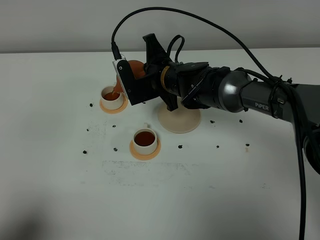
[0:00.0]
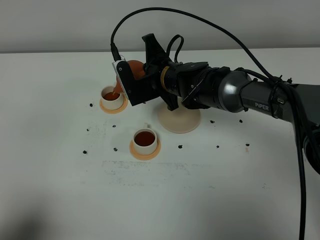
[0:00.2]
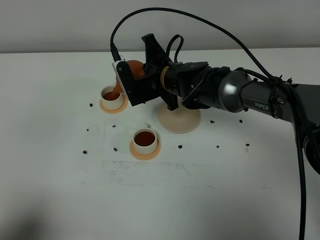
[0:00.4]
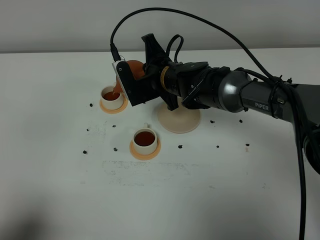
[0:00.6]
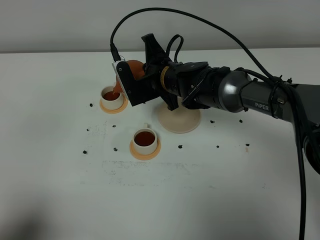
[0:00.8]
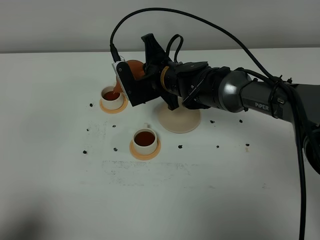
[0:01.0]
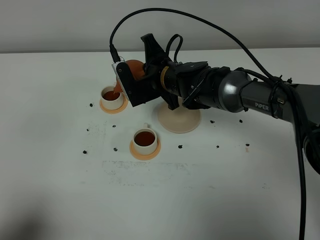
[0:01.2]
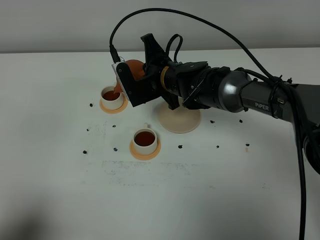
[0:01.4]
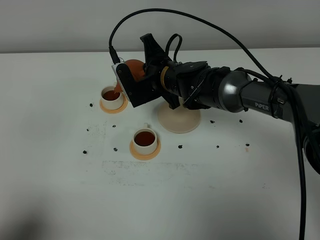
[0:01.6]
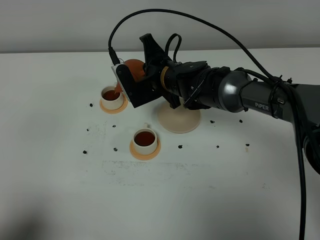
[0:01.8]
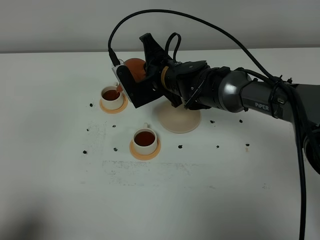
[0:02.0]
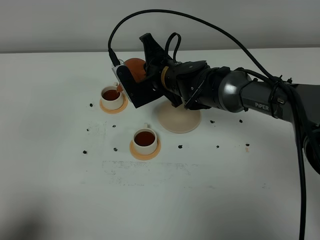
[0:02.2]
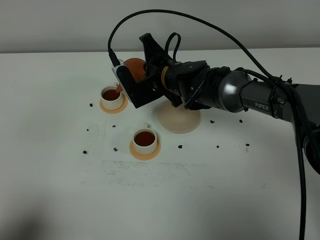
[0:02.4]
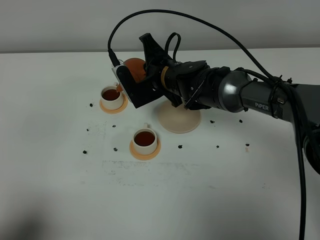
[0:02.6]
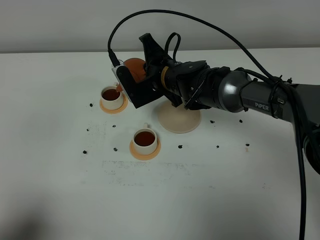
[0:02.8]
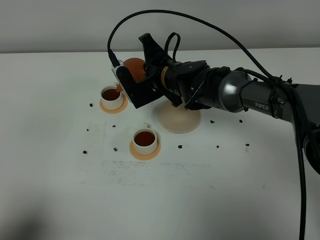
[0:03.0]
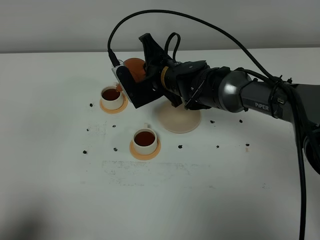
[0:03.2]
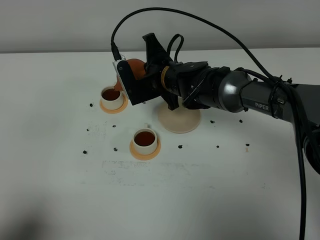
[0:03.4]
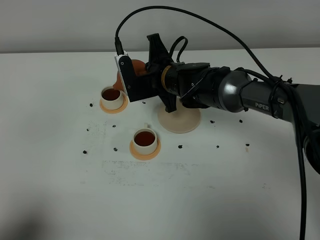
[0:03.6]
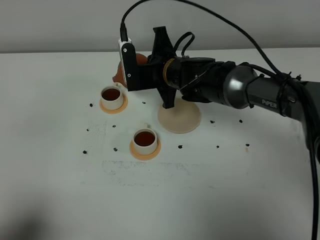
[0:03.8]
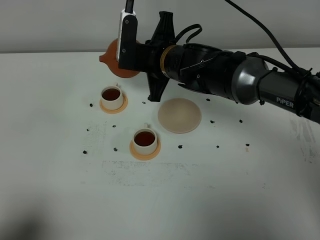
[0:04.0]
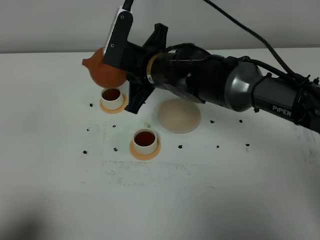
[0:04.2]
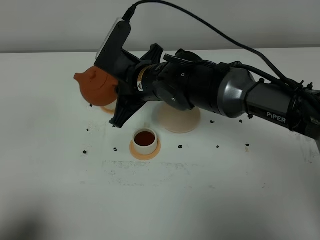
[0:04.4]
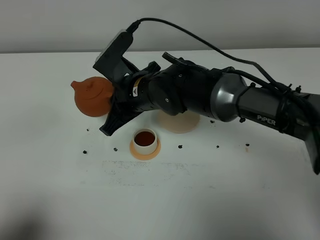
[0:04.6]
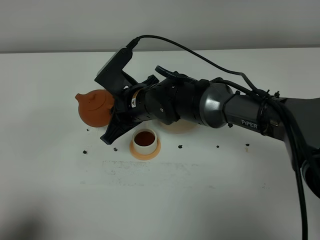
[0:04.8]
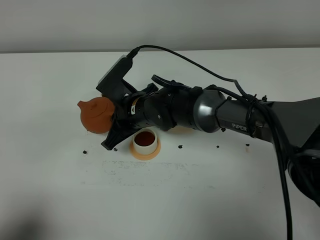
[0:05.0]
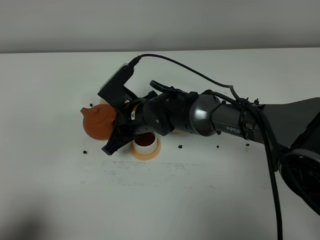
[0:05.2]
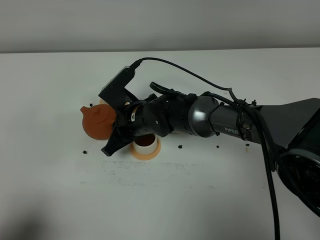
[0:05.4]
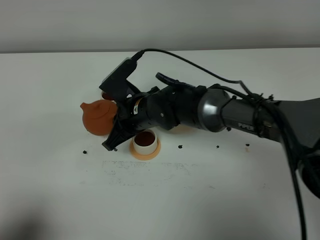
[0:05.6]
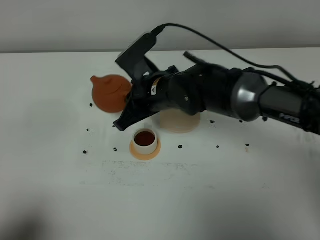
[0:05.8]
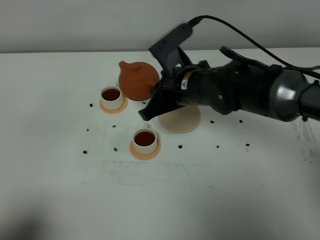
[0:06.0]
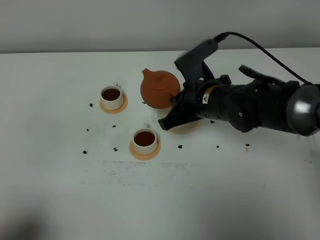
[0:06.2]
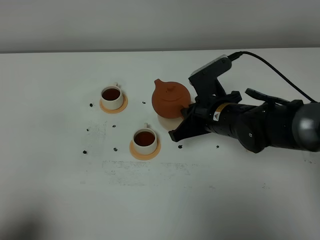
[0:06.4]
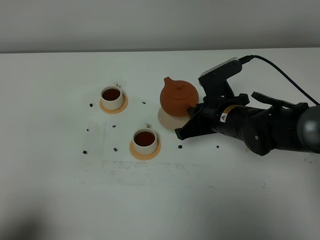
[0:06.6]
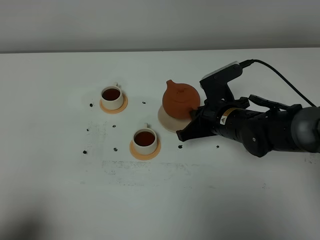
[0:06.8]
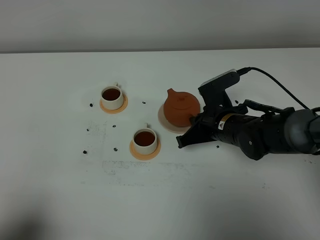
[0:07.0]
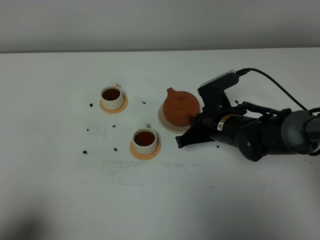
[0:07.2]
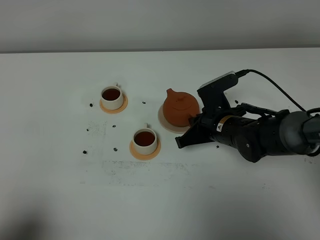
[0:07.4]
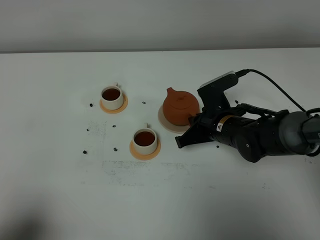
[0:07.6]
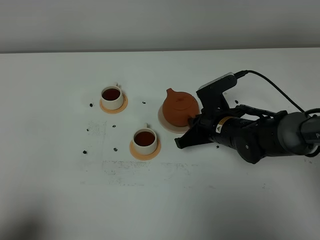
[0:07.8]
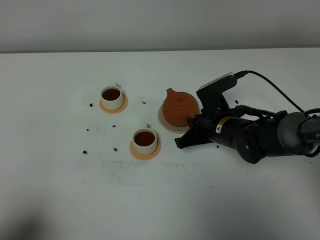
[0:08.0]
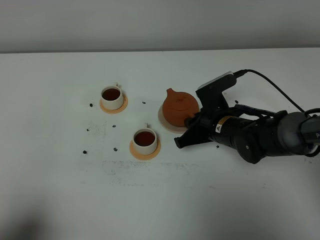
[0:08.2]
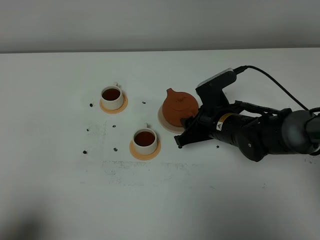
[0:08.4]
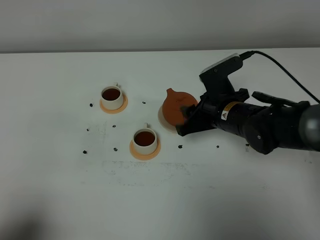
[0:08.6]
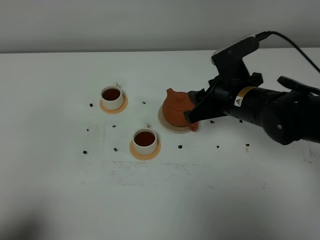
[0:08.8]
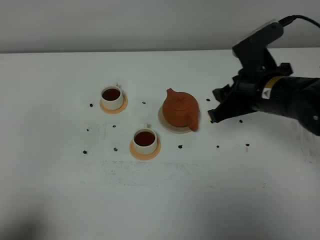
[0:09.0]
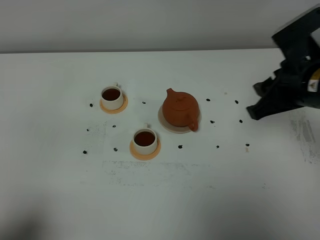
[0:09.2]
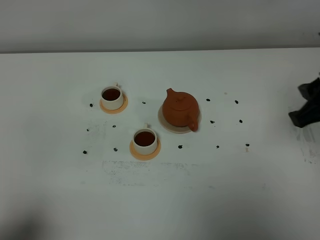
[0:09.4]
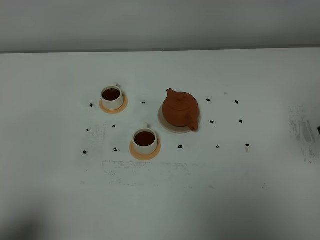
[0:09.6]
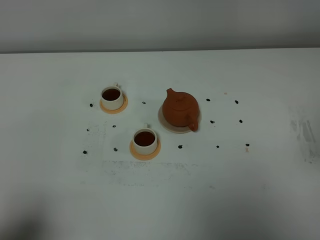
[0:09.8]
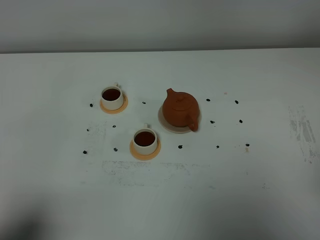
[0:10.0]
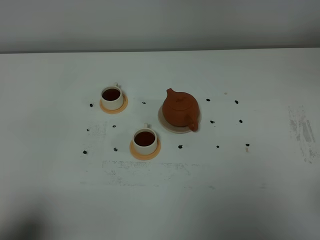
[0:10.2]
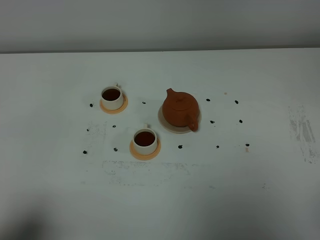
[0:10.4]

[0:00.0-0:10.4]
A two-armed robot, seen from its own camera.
Task of the whole recording: grasp the brown teapot and pour the tea into the two white teacups one by one, put the brown teapot back in its original place.
Step, 0:00.0 to 0:03.8: Pour tea into the teacup with the right gripper.
0:00.0 to 0:01.4: Both grippers stay about where they are.
0:01.4 to 0:03.0: Neither gripper changes place.
0:03.0 to 0:04.4: The right gripper is displaced backward by about 5 cm.
0:04.4 to 0:06.0: The right gripper is displaced to the right by some 10 cm, and goes downward and returns, about 10 cm each way.
0:06.0 to 0:07.4: The right gripper moves downward and to the right, approximately 10 cm.
0:07.4 to 0:09.0: The right gripper heads upward, covering roughly 15 cm, and opens.
0:09.0 to 0:10.4: The right gripper moves backward and to the right, about 30 cm, and closes.

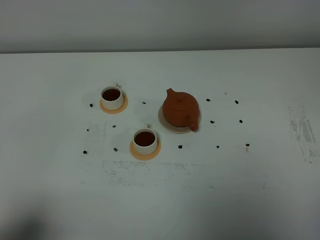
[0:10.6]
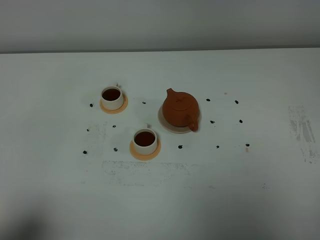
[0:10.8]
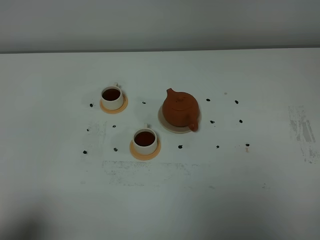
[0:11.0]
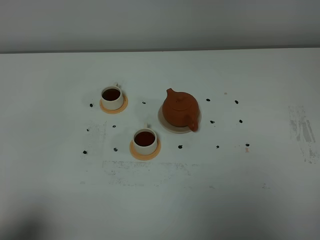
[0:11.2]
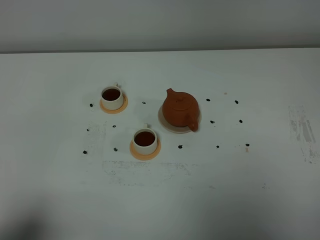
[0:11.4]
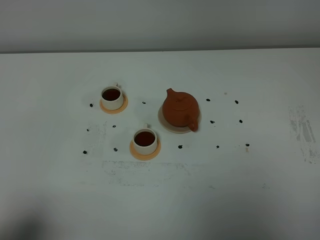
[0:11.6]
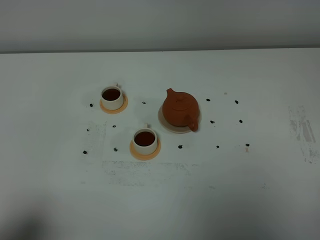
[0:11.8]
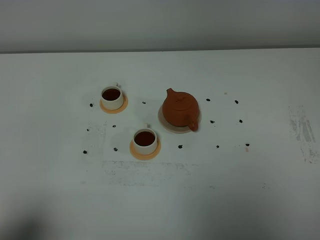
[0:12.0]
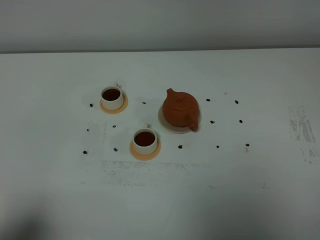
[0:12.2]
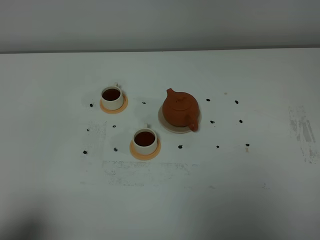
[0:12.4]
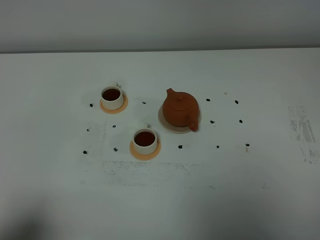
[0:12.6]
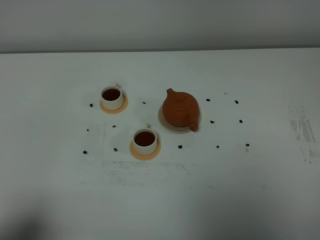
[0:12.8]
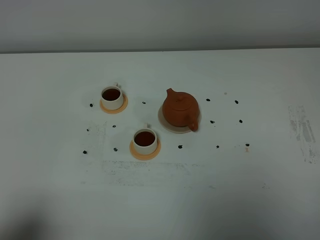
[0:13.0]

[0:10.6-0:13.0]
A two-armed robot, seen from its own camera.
Task of the whole recording: grasp the brown teapot and pour the tea into the two white teacups one by one, put the brown teapot back in its original place.
0:11.8 to 0:13.0: Neither gripper changes place.

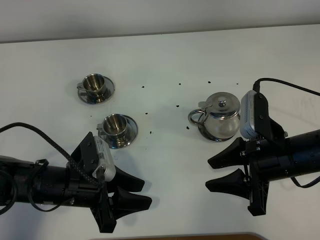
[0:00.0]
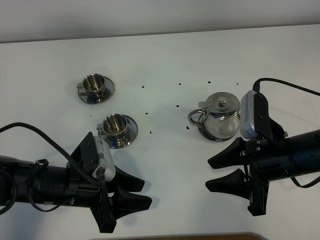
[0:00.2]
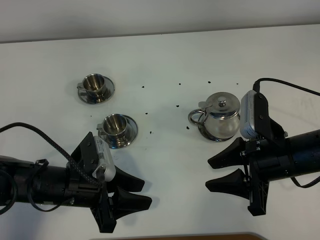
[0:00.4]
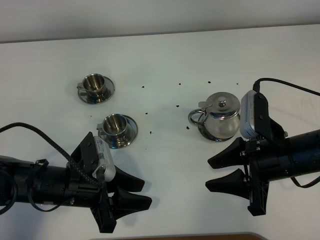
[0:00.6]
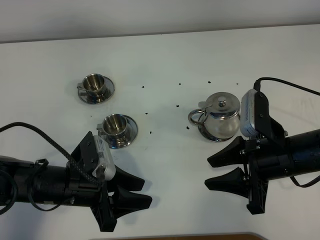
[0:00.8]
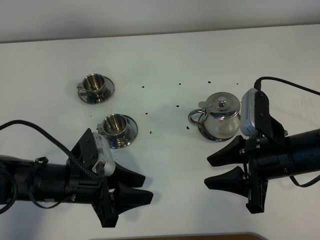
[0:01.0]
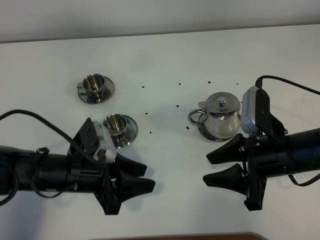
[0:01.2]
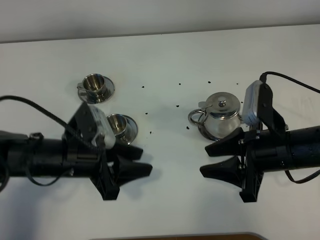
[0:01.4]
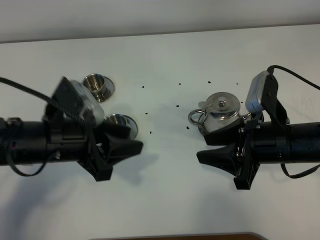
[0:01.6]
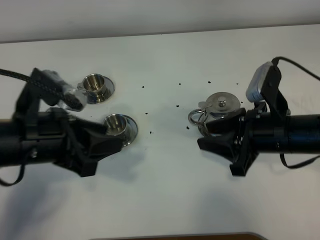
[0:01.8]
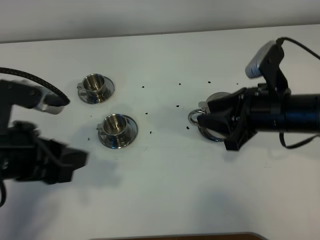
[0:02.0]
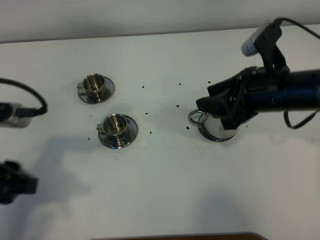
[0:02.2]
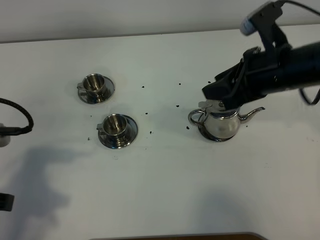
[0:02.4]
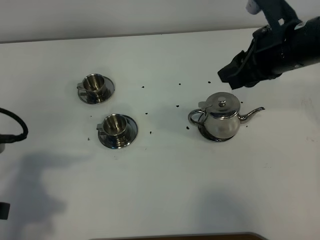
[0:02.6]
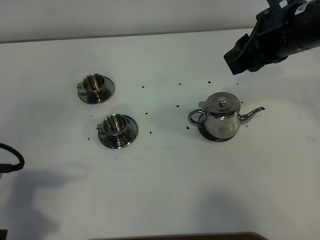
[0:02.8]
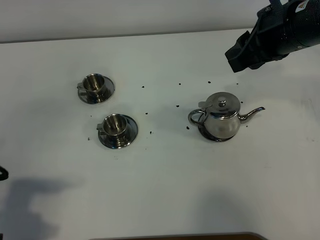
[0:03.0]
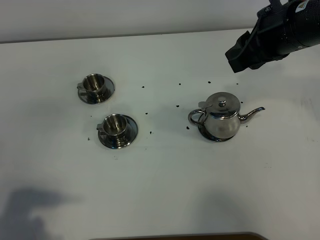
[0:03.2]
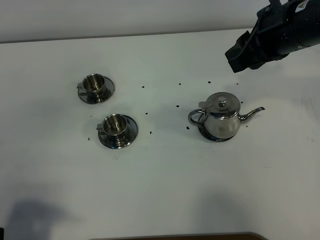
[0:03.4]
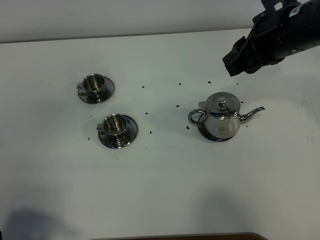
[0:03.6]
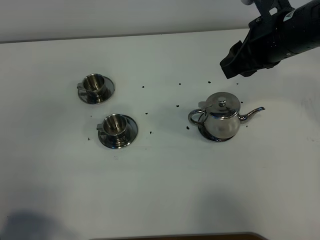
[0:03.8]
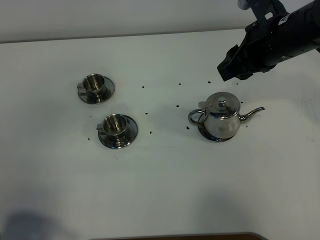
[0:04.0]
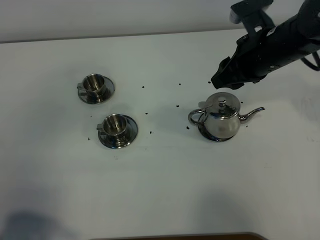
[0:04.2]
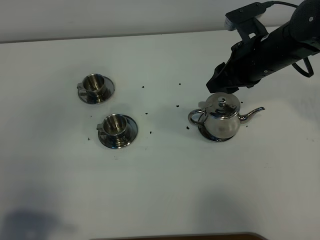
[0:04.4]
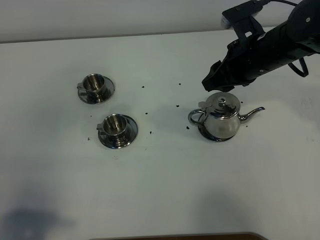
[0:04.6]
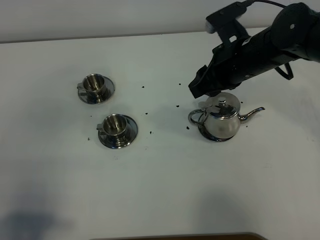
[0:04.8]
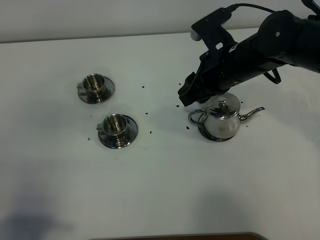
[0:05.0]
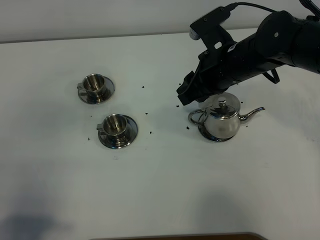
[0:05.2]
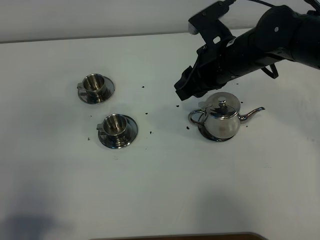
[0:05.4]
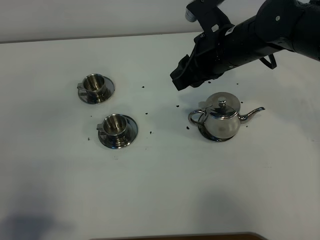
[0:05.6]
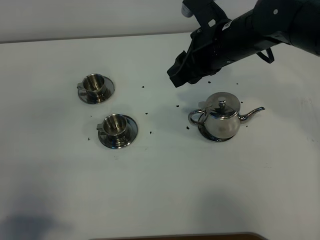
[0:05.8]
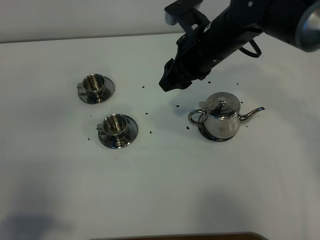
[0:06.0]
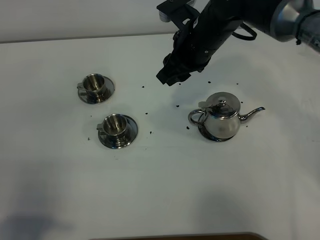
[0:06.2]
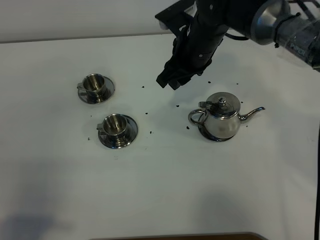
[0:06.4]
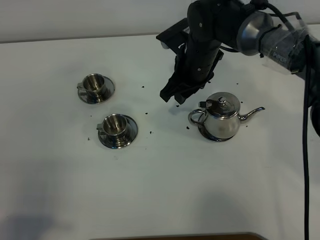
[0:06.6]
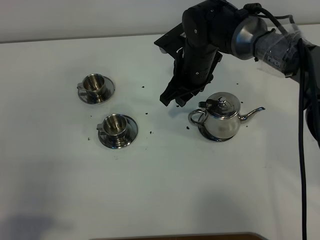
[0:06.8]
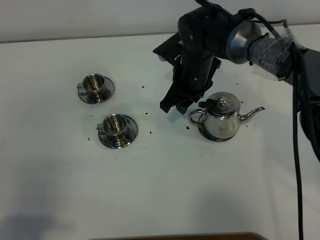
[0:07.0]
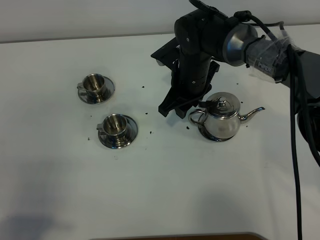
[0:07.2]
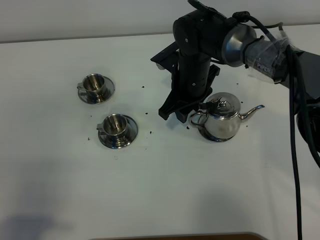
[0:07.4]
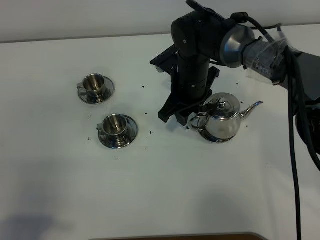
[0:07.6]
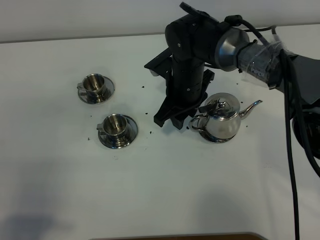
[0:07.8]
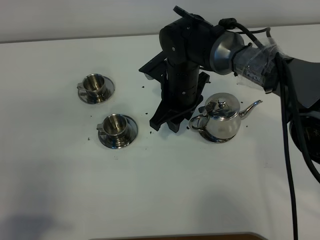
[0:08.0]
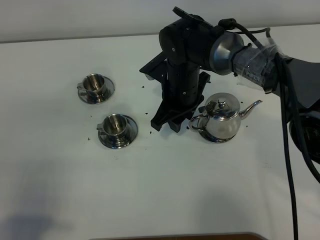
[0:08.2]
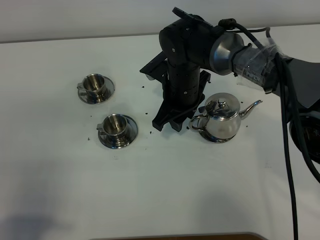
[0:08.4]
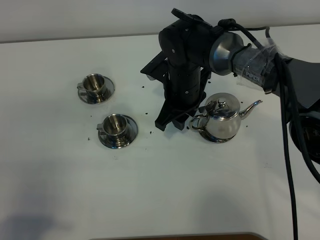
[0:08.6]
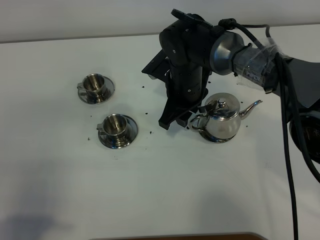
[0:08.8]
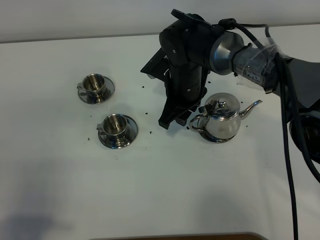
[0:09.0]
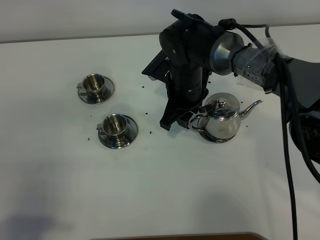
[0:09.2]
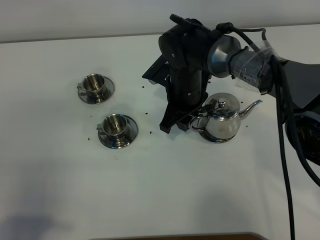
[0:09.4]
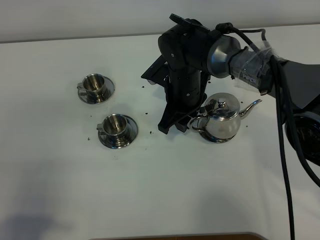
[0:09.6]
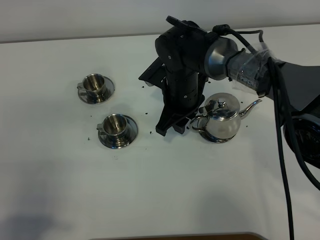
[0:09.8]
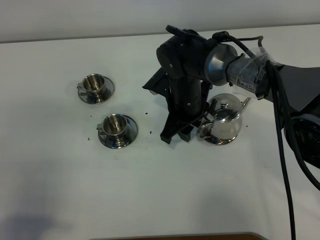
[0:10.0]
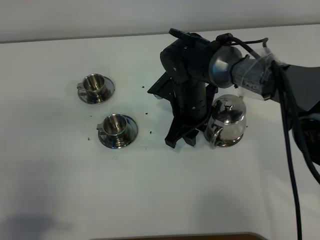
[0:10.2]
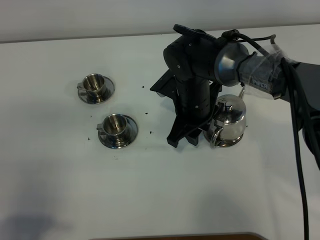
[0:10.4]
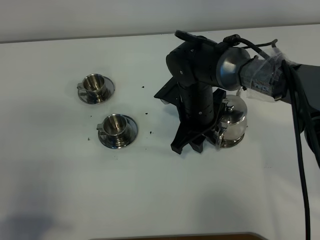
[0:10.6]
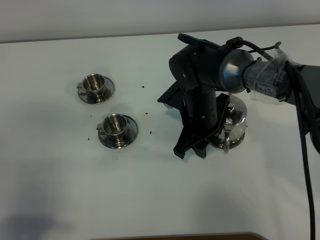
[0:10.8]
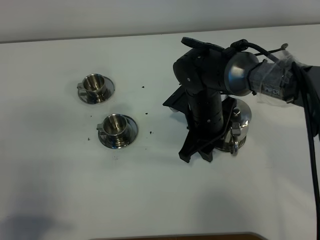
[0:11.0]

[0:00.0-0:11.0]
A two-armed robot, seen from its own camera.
Task of the whole recording: grasp the stainless steel teapot and pour the tea into the two stainless steel teacups one by one, put the stainless steel teapot back in its original place.
0:00.0 to 0:01.6: The left gripper goes about 10 cm upward.
0:01.6 to 0:03.2: The right gripper is displaced upward and forward by some 15 cm; the left gripper shifts some 20 cm backward and to the left.
0:03.2 to 0:04.8: The right gripper heads downward and to the left, covering roughly 10 cm.
0:04.8 to 0:06.2: The right gripper travels to the left by about 5 cm.
0:06.2 to 0:07.8: The right gripper travels downward by some 10 cm.
0:07.8 to 0:09.4: The grippers move only a little.
0:09.4 to 0:11.0: The right gripper travels backward by some 5 cm.
